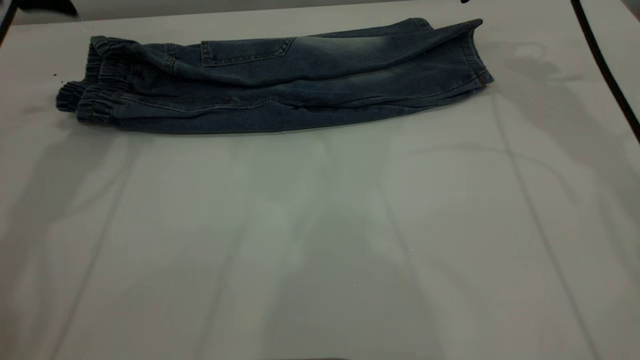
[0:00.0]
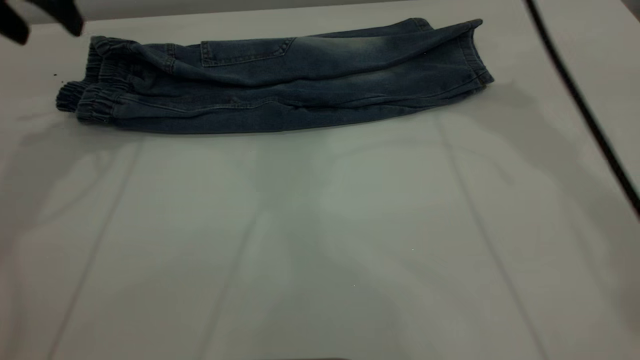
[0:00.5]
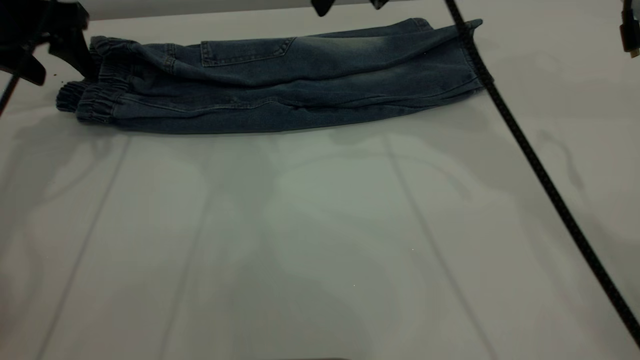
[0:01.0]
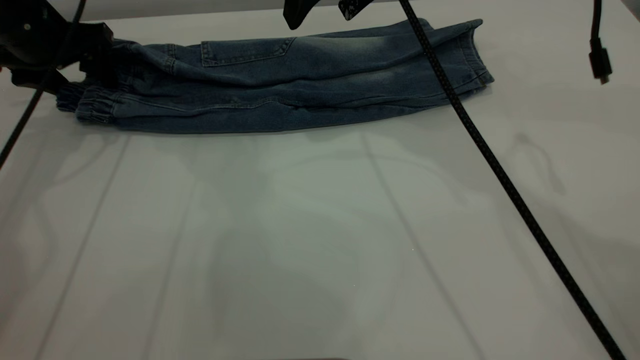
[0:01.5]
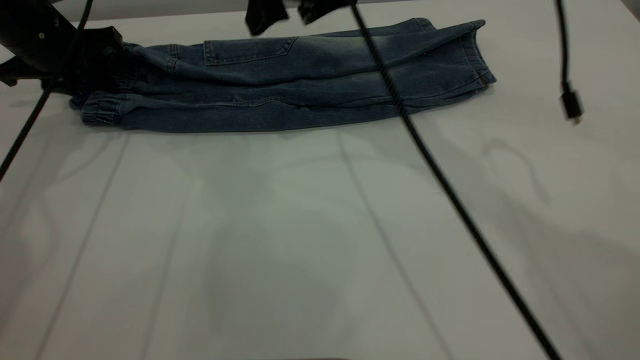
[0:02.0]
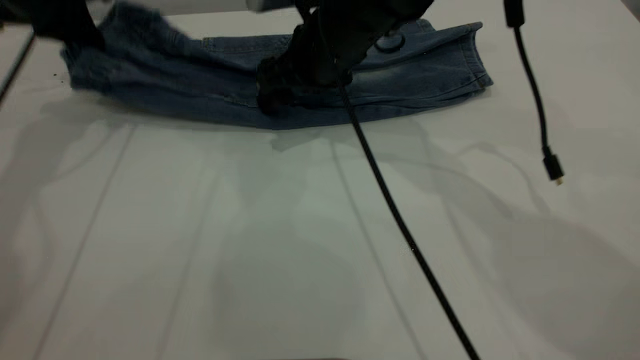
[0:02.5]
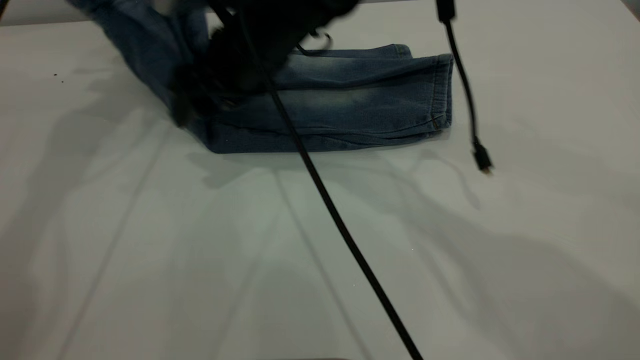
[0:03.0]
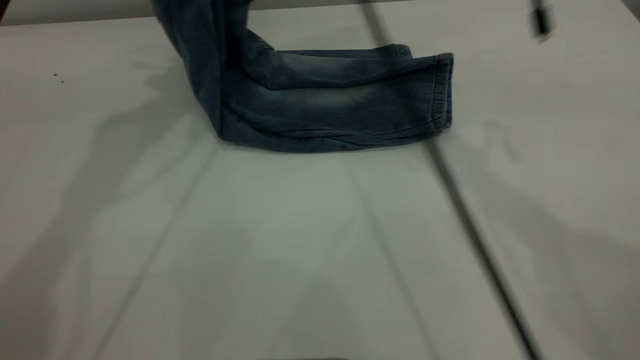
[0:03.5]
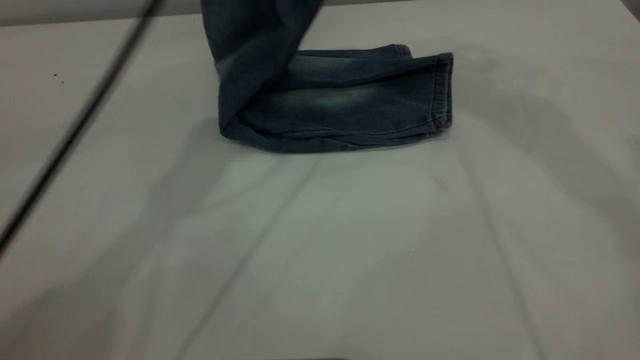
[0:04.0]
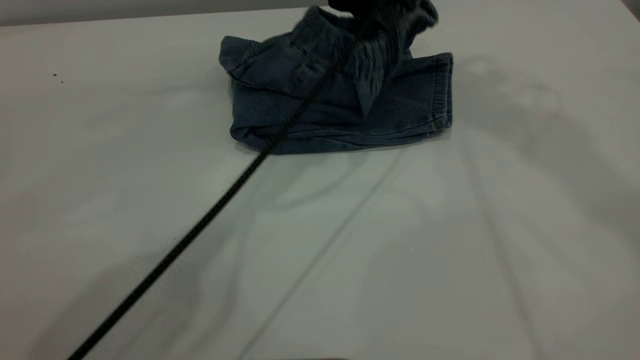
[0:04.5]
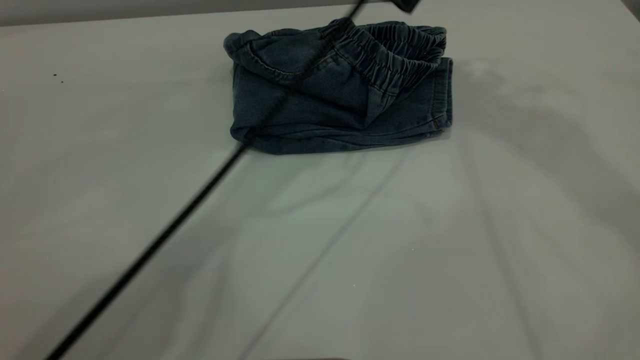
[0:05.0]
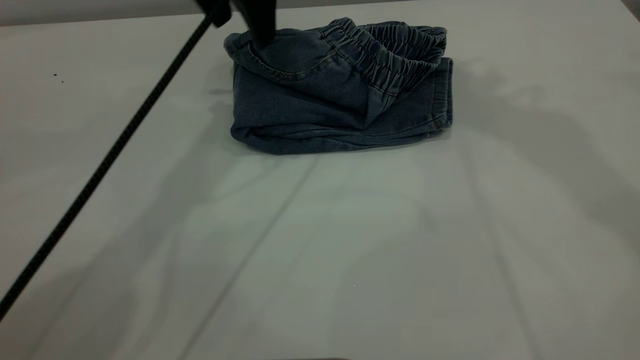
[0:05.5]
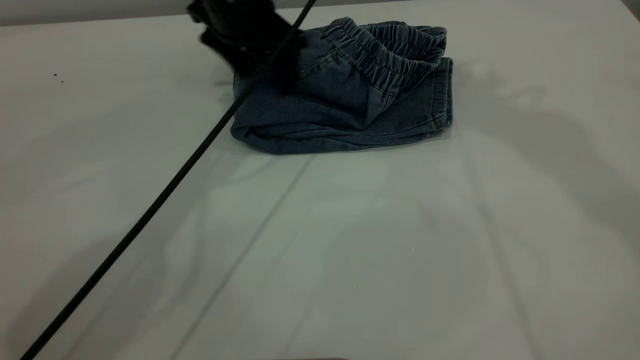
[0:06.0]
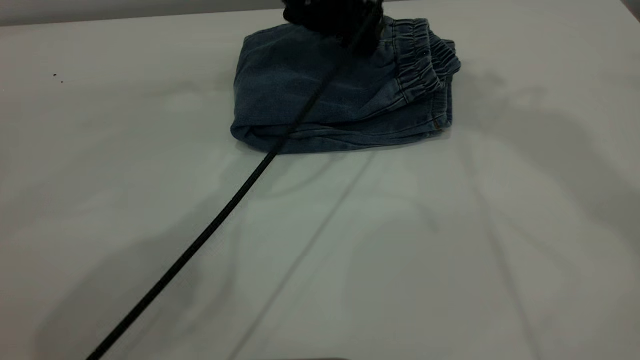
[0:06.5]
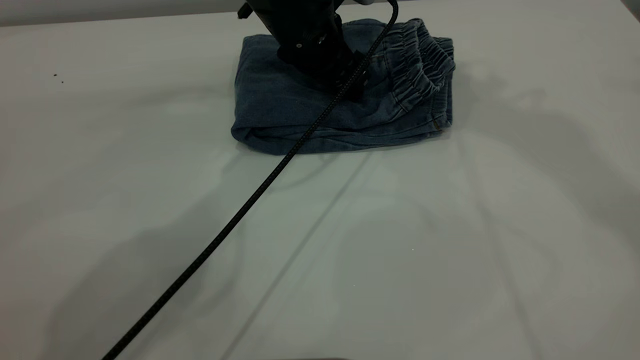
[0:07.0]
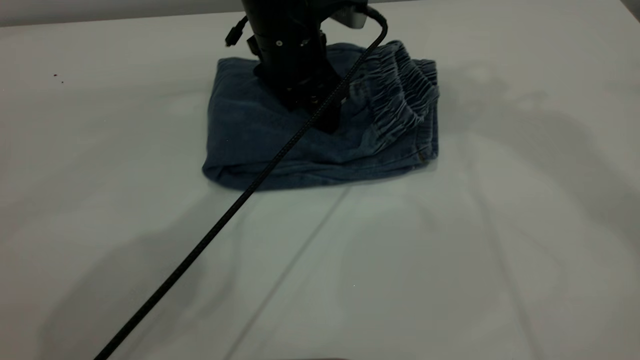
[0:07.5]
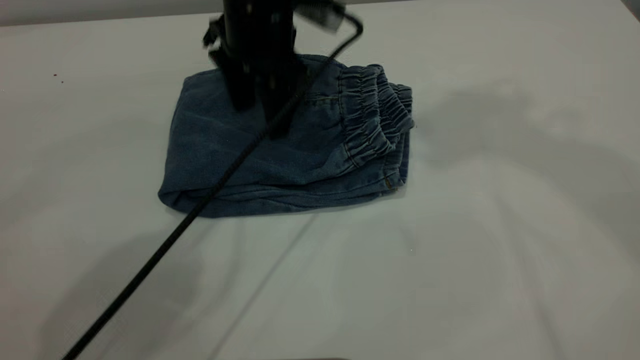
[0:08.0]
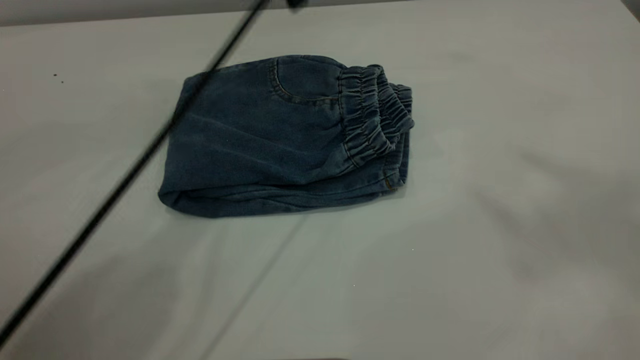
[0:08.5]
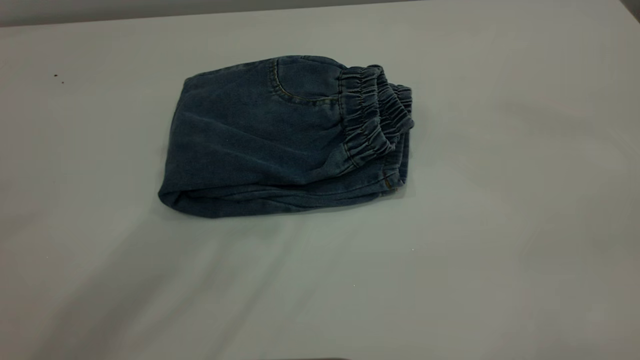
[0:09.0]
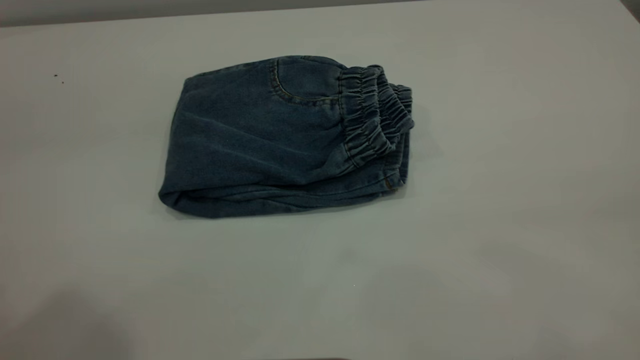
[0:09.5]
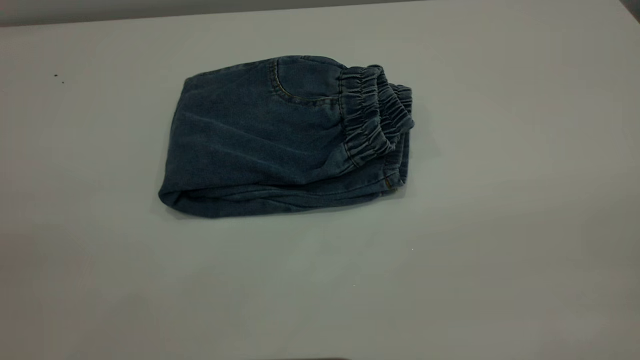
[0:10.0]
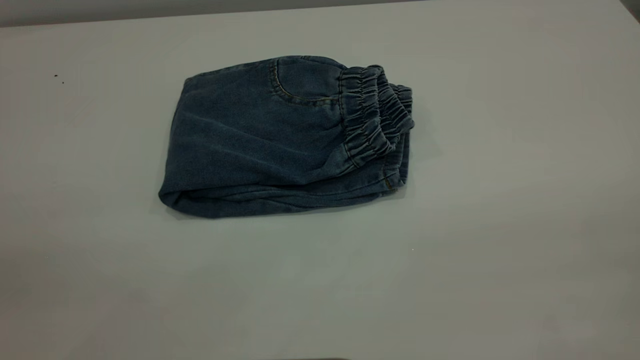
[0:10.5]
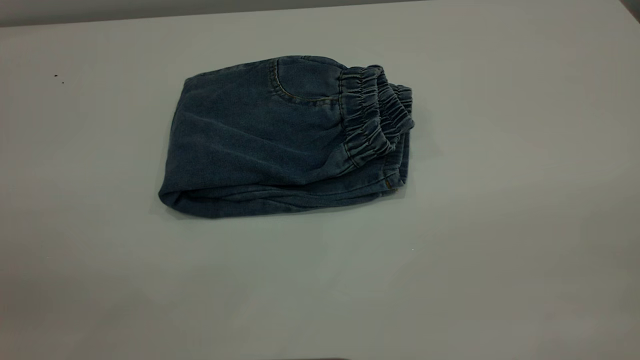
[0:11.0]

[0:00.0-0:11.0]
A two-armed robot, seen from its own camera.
Step, 0:00.5 to 0:05.0: Fold the pants from left to right.
0:00.0 to 0:02.0: The right gripper heads to the left, covering approximately 20 cm; the left gripper heads downward, covering about 10 cm, and closes its fingers.
0:02.0 to 0:03.5: The left gripper travels upward and to the right by approximately 25 cm. Meanwhile the right gripper shifts about 10 cm upward.
0:03.5 to 0:05.5: The right gripper goes about 20 cm upward and to the right, while the left gripper moves downward and to the right, about 10 cm, and opens its fingers.
0:05.5 to 0:07.5: The left gripper heads downward and to the right, covering about 15 cm.
0:07.5 to 0:09.0: The right gripper moves backward, roughly 35 cm; the left gripper is displaced upward and backward by some 35 cm.

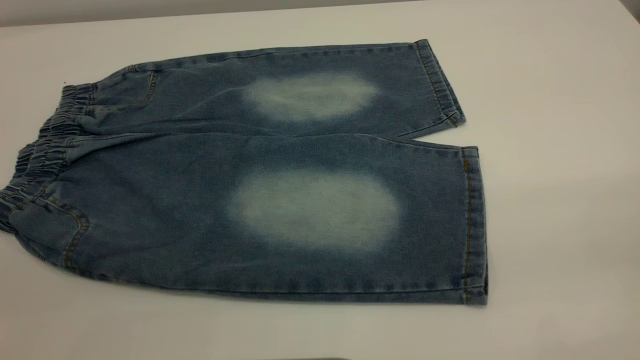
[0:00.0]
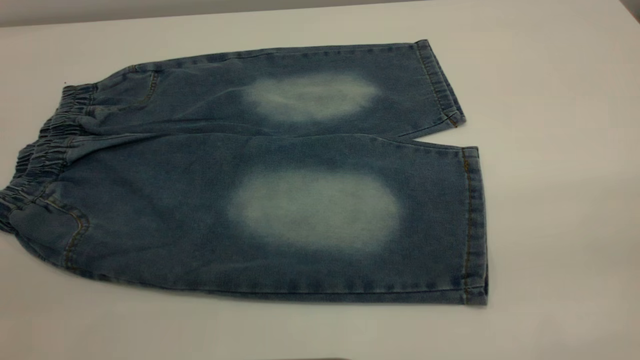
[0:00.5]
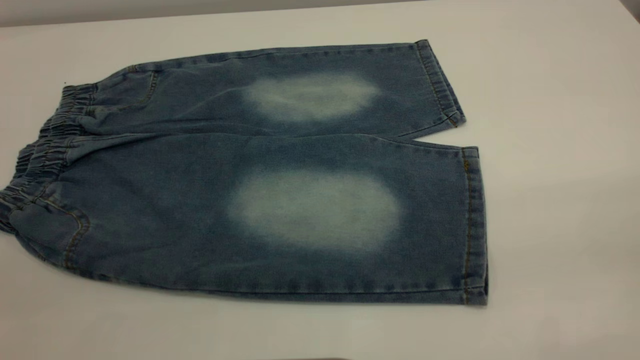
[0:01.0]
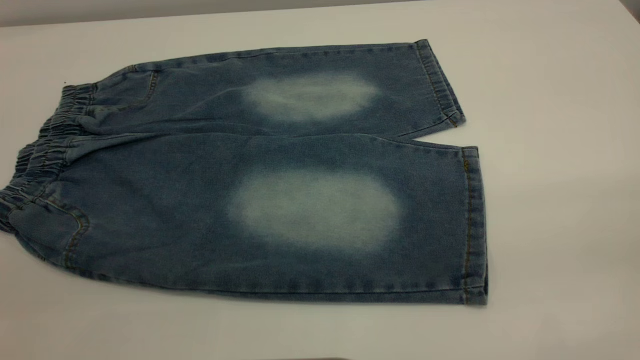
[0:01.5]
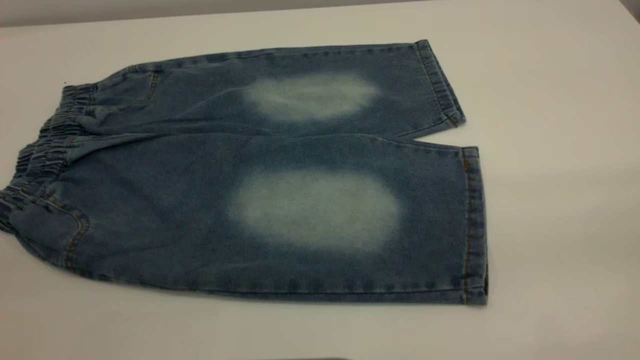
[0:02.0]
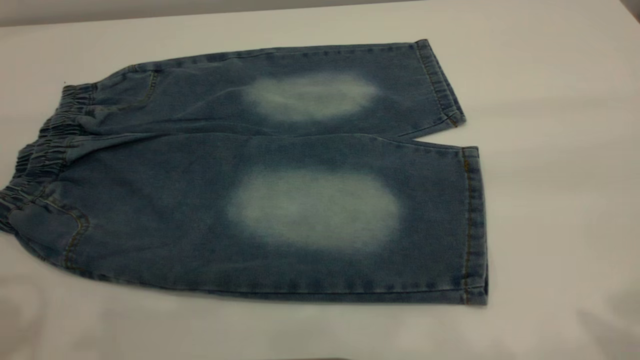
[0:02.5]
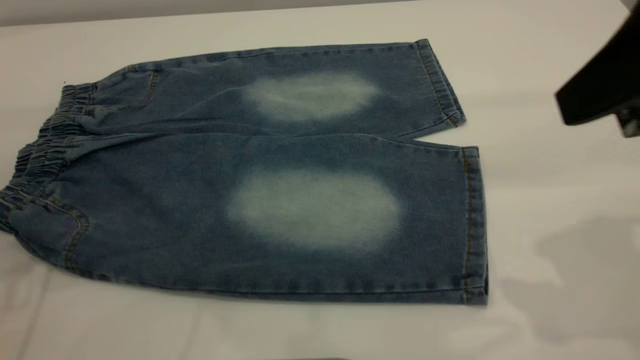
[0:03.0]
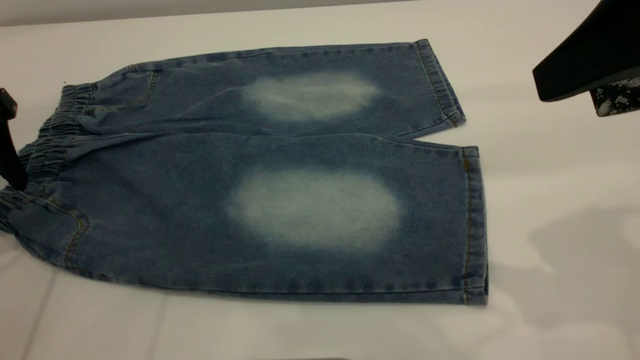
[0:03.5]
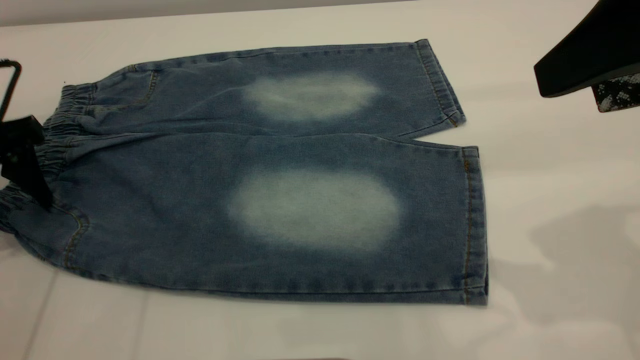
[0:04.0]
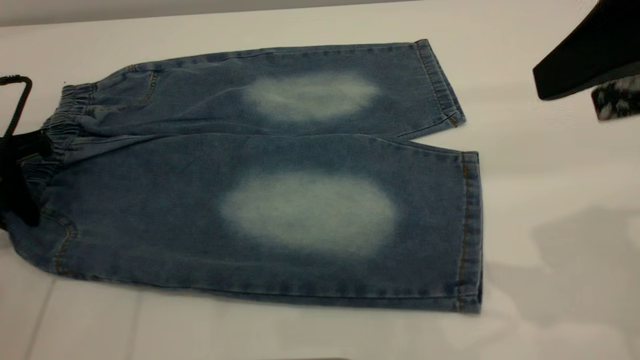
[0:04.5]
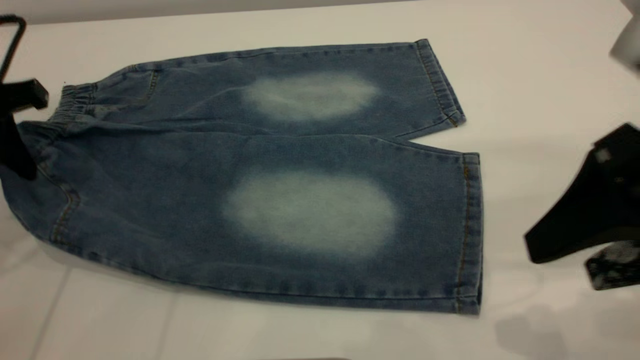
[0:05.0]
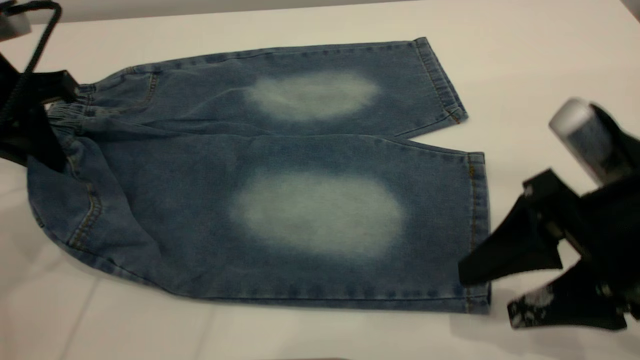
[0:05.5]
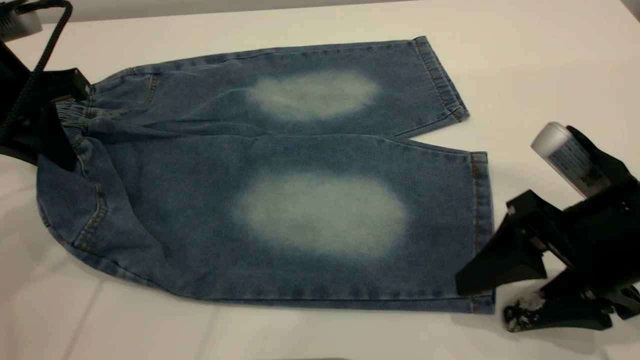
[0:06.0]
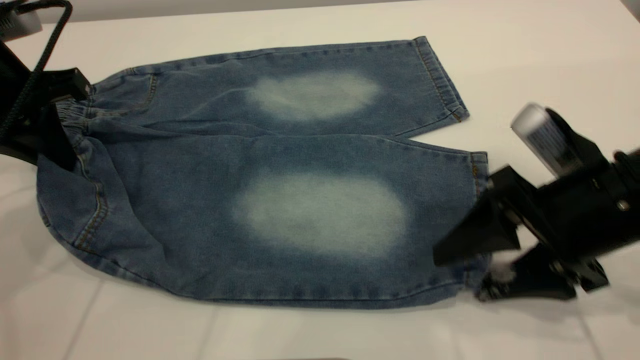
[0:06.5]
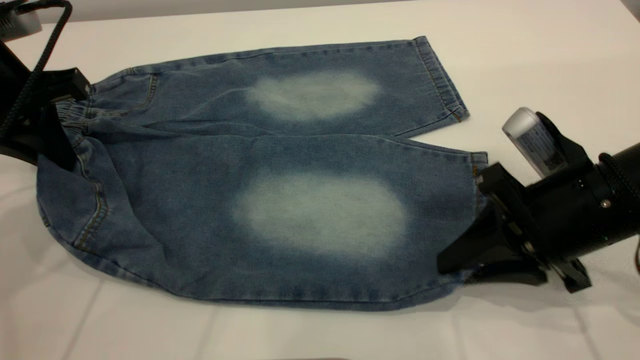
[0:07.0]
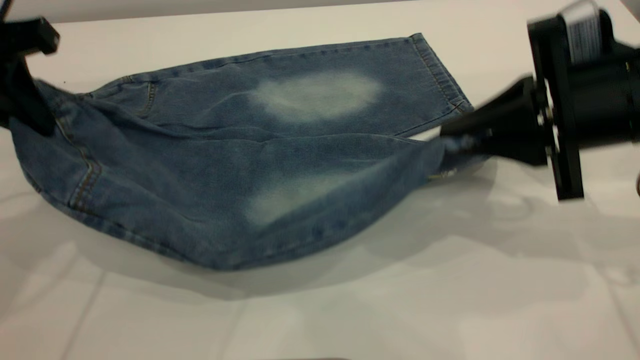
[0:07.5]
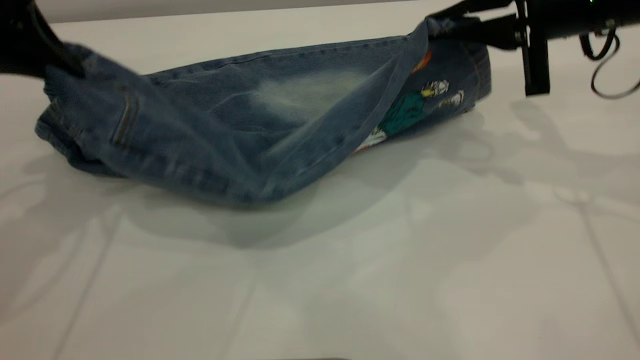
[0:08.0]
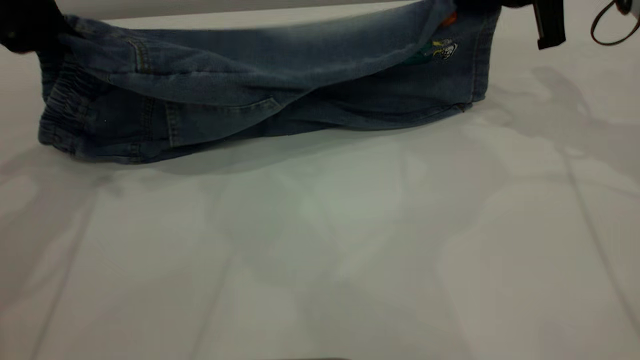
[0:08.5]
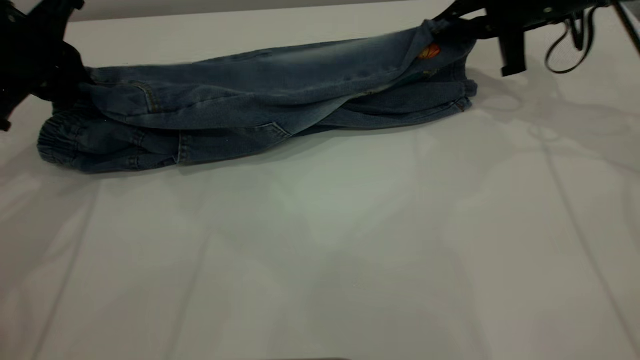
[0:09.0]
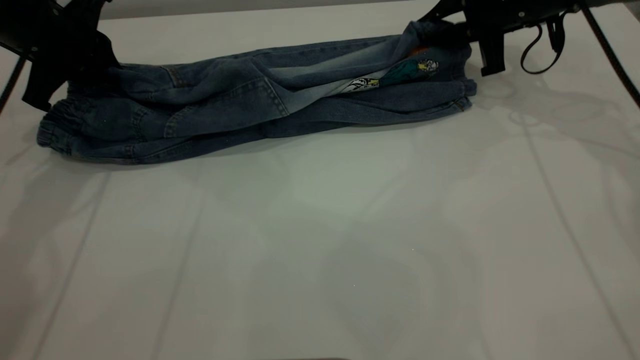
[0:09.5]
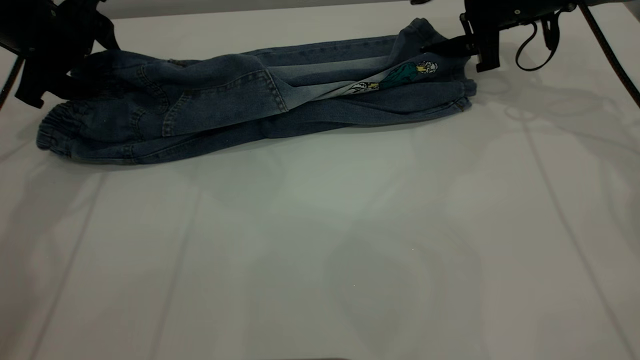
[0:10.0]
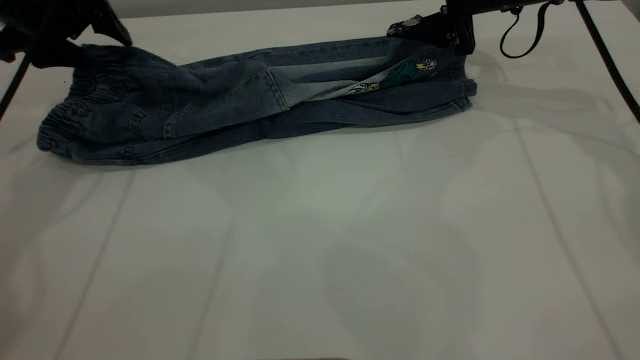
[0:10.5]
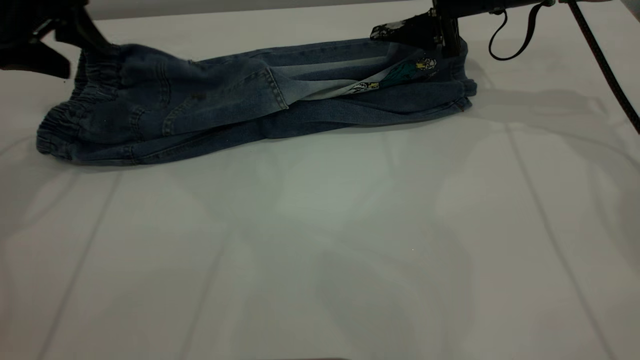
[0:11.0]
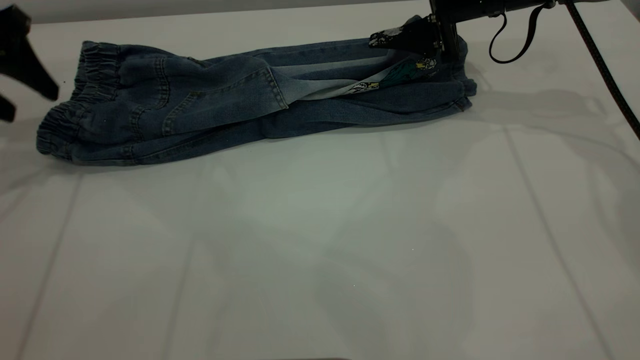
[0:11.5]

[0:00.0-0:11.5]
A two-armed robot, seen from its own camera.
Step, 0:00.0 to 0:11.0: Fold the bottom of the pants upward.
0:02.0 to 0:04.0: The left gripper heads forward and downward, covering some 35 cm. The right gripper heads forward, covering approximately 20 cm.
0:04.0 to 0:06.0: The left gripper is displaced to the right by roughly 5 cm, and closes up, while the right gripper heads downward, covering some 20 cm.
0:06.0 to 0:07.5: The left gripper shifts by some 5 cm, while the right gripper goes some 10 cm forward and upward, and closes its fingers.
0:07.5 to 0:09.5: The right gripper moves forward, roughly 20 cm; the left gripper heads forward and downward, covering about 15 cm.
0:09.5 to 0:11.5: The right gripper ends up about 5 cm from where it was, and opens; the left gripper heads to the left, covering some 5 cm, and opens up.
